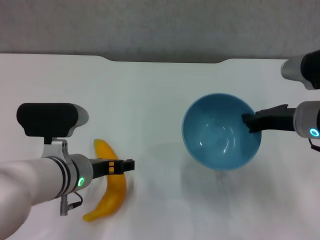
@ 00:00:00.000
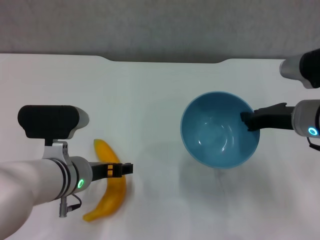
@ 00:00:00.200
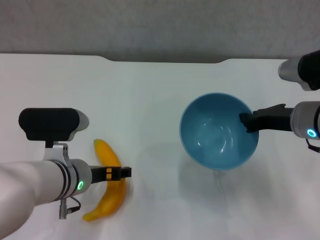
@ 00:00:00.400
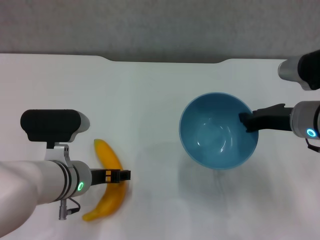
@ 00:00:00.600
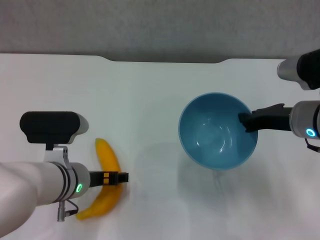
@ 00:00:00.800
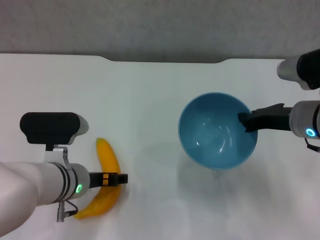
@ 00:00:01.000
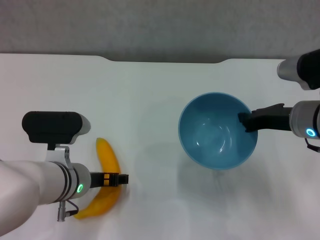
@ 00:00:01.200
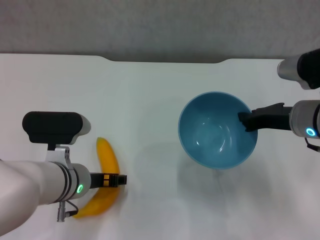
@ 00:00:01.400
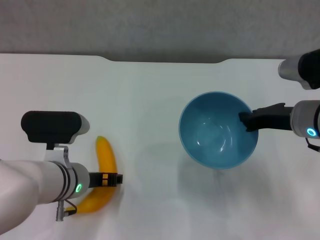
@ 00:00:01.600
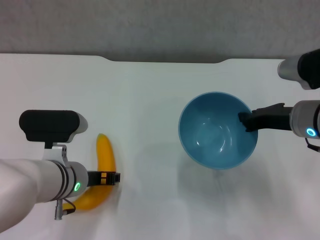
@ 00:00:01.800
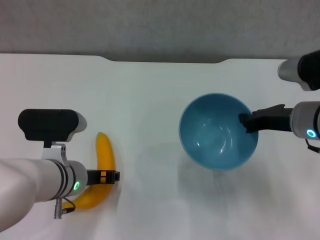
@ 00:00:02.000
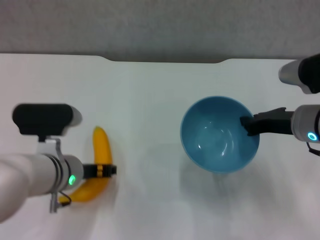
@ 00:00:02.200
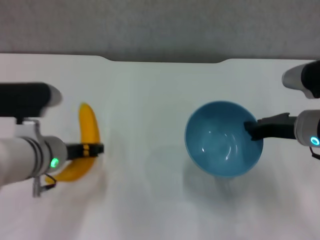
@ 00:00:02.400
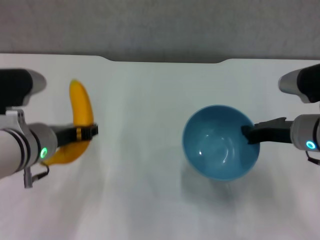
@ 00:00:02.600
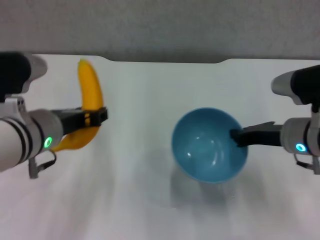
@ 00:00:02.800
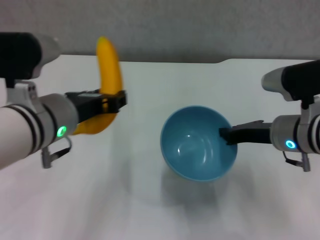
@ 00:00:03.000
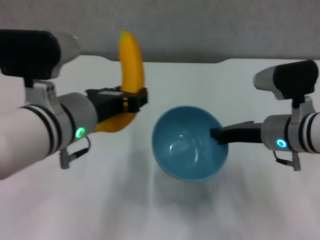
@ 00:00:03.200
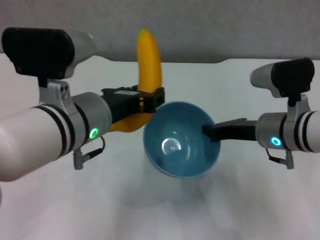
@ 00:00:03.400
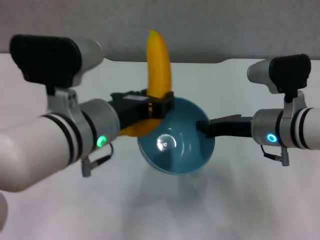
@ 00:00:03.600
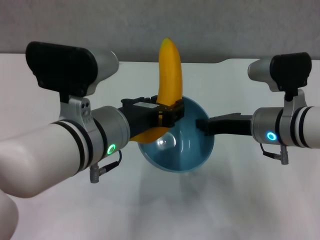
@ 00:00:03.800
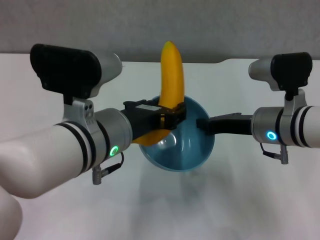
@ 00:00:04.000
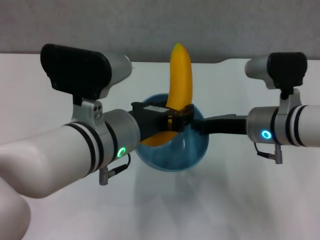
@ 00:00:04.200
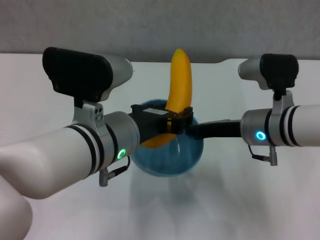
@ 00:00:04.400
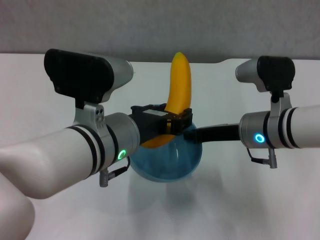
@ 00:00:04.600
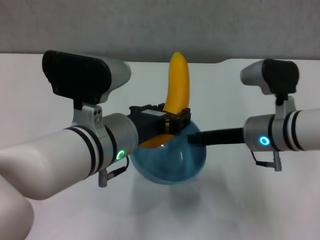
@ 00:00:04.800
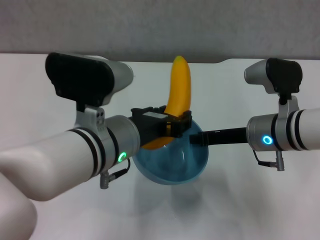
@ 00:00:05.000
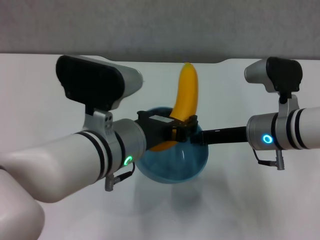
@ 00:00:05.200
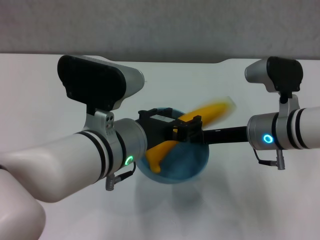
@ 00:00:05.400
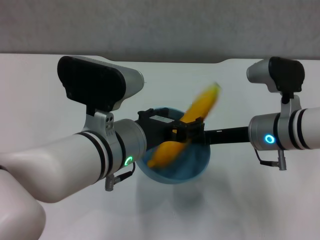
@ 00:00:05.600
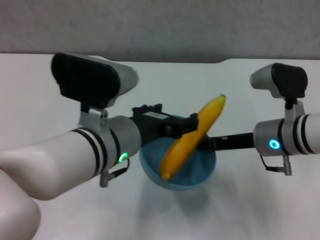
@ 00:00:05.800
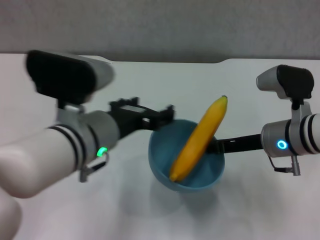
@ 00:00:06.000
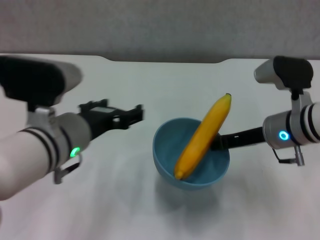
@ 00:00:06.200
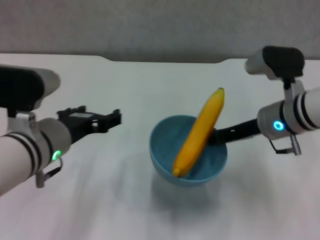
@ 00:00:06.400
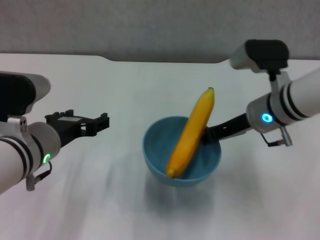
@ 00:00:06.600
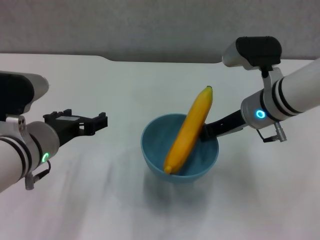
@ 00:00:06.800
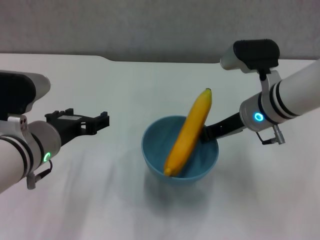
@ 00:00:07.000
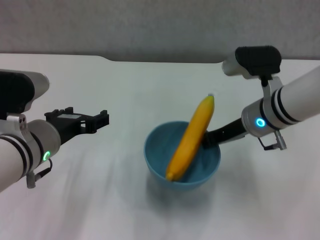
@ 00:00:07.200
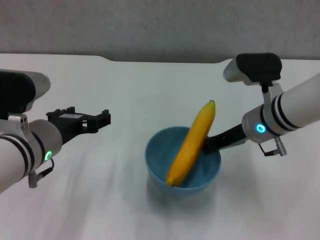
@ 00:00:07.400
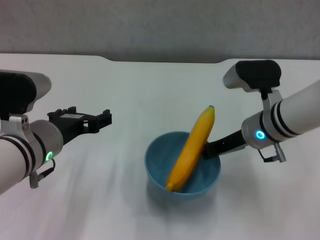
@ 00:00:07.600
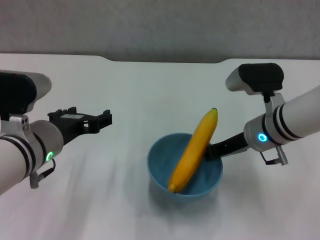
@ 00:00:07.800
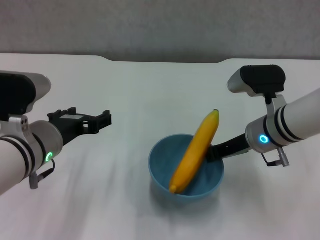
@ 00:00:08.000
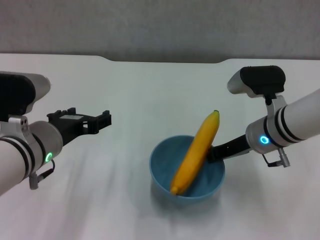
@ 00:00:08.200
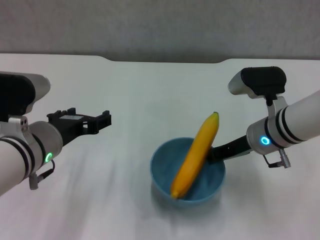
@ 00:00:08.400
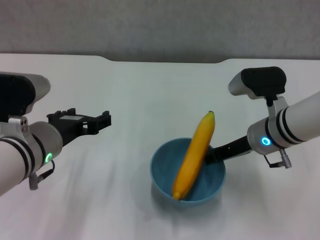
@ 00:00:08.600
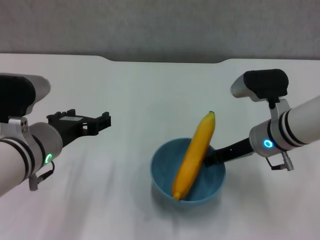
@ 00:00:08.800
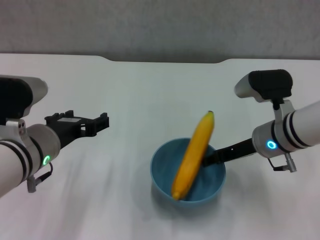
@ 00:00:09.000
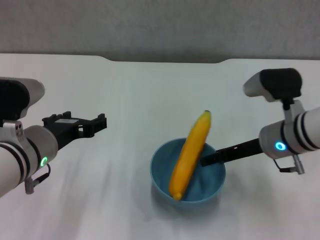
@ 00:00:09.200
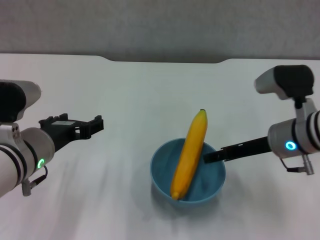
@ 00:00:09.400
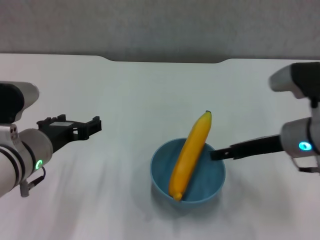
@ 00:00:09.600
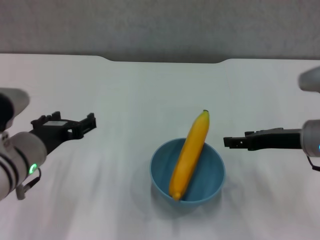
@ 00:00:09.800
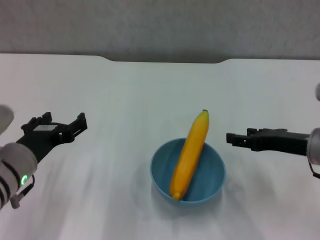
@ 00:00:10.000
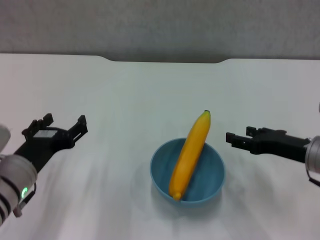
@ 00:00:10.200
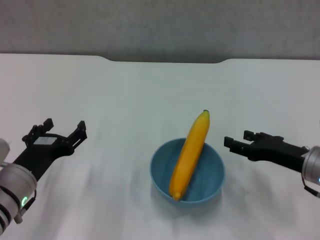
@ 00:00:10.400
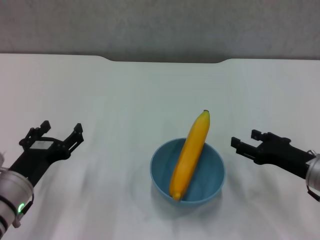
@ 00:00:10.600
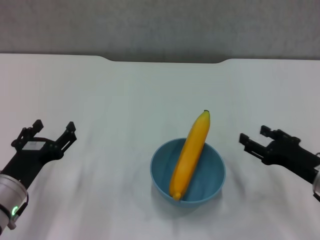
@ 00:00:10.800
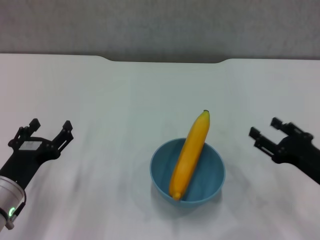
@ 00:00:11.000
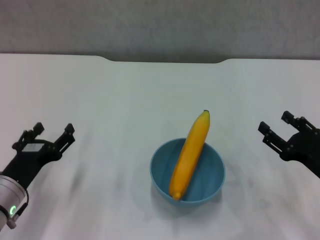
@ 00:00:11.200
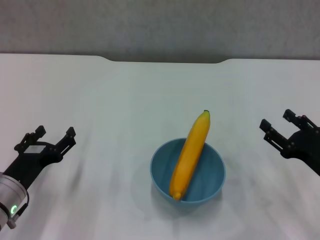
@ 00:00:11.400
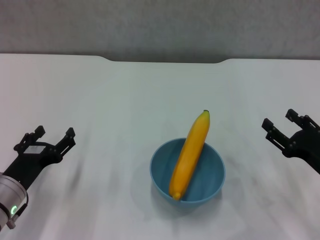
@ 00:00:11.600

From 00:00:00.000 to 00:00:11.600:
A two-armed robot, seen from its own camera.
Step, from 00:00:00.000 to 00:00:01.600: Grasp the banana with left gripper.
Step, from 00:00:01.800 to 00:00:05.600: Place the banana in the blue bowl with left gripper.
Step, from 00:00:05.800 to 00:00:09.400: Place the bowl on the table with right gripper.
From 00:00:00.000 to 00:00:01.400: The grippers move only a little.
From 00:00:01.400 to 00:00:02.800: The left gripper goes approximately 10 cm upward, and closes.
From 00:00:02.800 to 00:00:04.400: The right gripper heads to the left, covering about 5 cm; the left gripper heads to the right, covering roughly 10 cm.
From 00:00:04.400 to 00:00:05.800: The left gripper opens up.
From 00:00:05.800 to 00:00:07.200: The left gripper moves to the left, roughly 10 cm.
From 00:00:08.800 to 00:00:10.200: The left gripper travels downward by roughly 5 cm. Meanwhile the right gripper goes about 10 cm to the right and backward, and opens up.
From 00:00:10.200 to 00:00:11.600: The right gripper ends up approximately 10 cm from where it was. Meanwhile the left gripper heads downward, covering about 5 cm.
